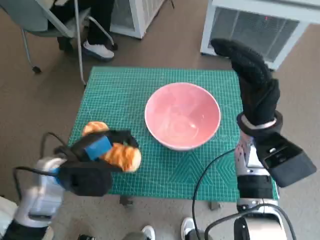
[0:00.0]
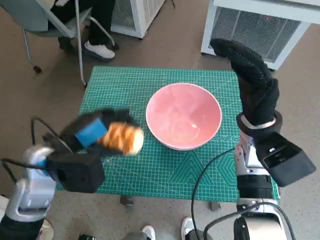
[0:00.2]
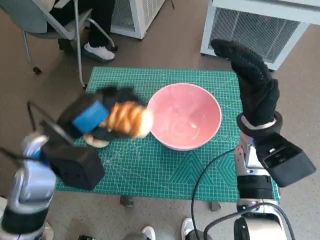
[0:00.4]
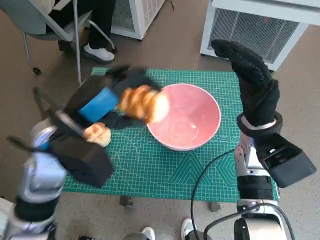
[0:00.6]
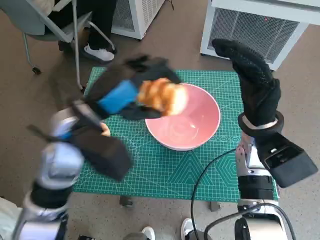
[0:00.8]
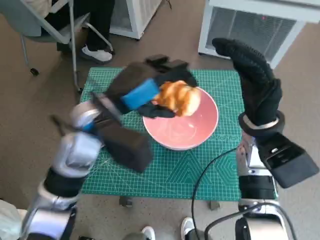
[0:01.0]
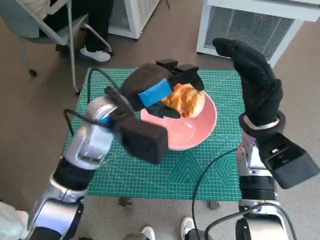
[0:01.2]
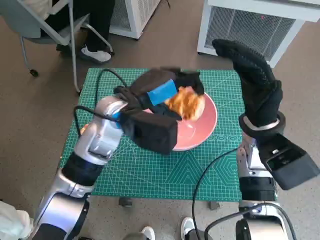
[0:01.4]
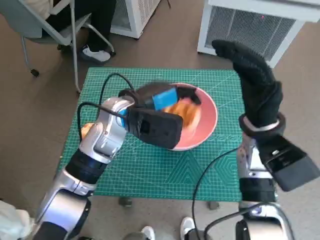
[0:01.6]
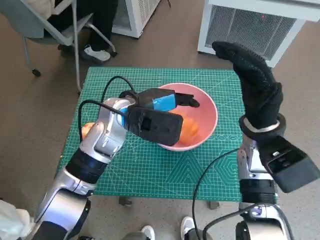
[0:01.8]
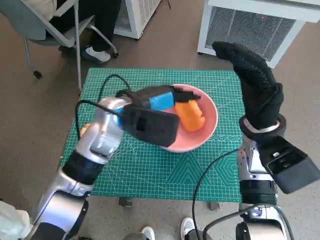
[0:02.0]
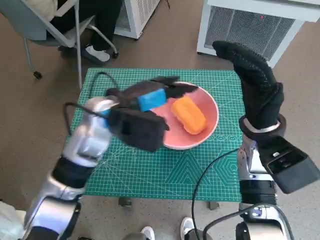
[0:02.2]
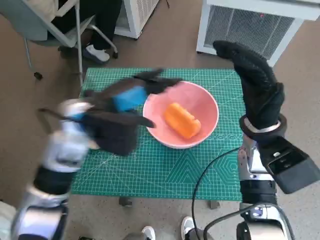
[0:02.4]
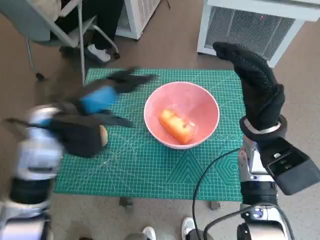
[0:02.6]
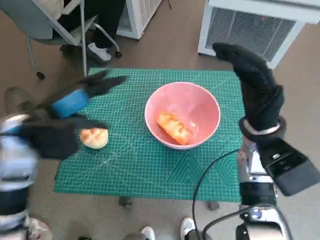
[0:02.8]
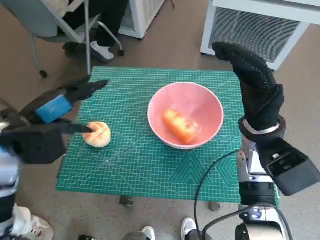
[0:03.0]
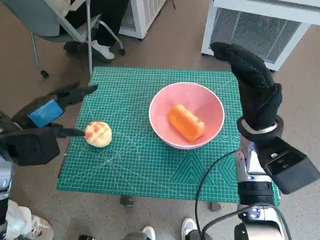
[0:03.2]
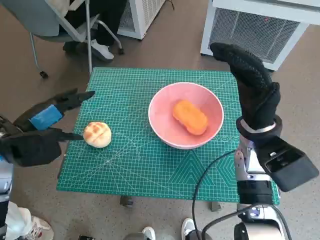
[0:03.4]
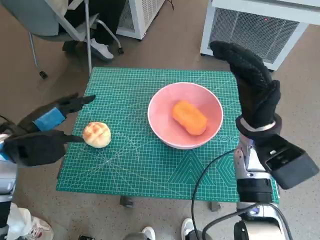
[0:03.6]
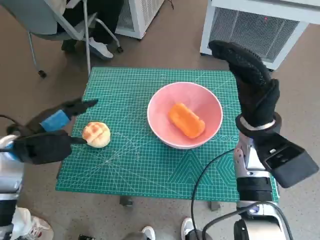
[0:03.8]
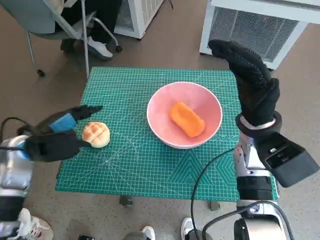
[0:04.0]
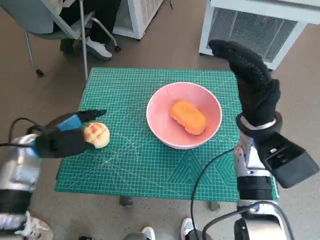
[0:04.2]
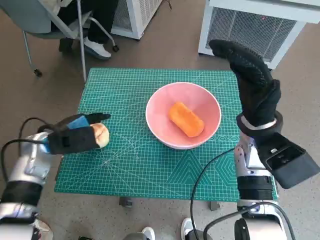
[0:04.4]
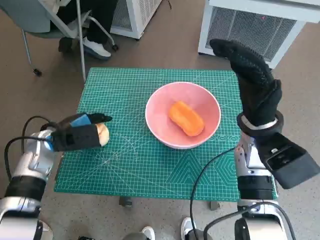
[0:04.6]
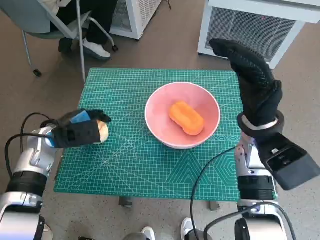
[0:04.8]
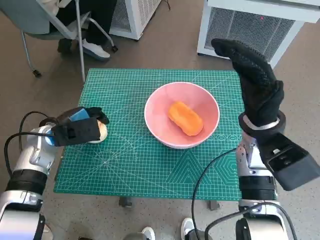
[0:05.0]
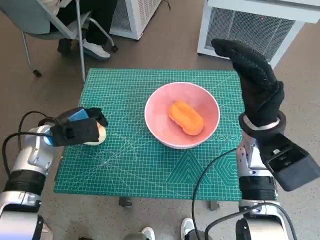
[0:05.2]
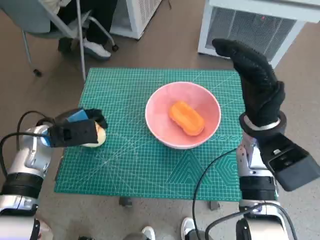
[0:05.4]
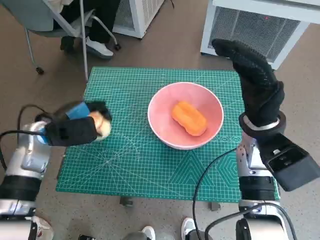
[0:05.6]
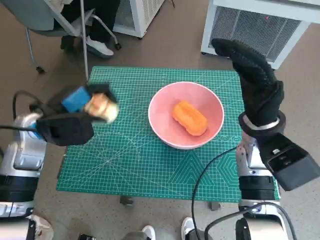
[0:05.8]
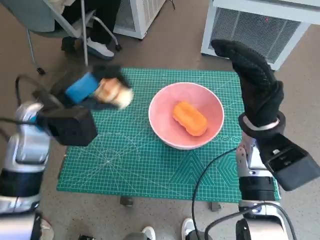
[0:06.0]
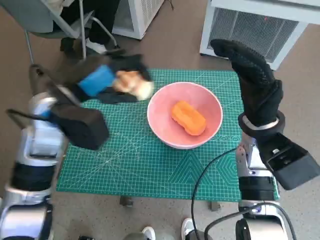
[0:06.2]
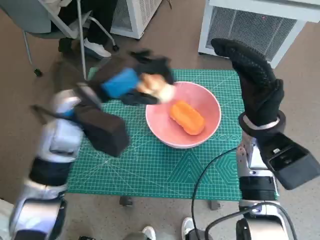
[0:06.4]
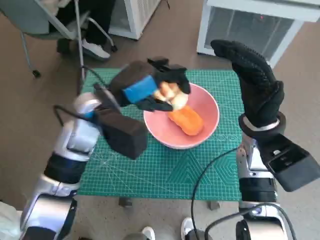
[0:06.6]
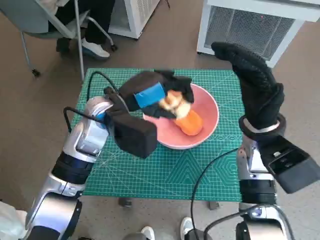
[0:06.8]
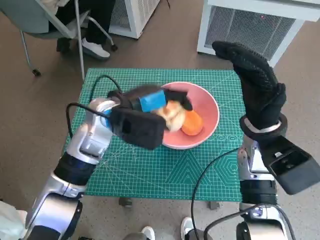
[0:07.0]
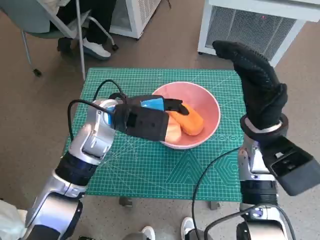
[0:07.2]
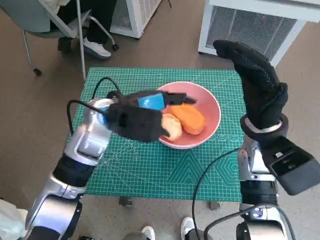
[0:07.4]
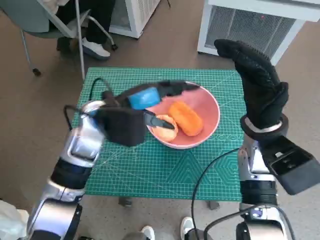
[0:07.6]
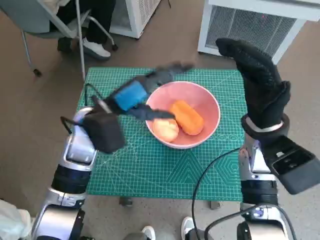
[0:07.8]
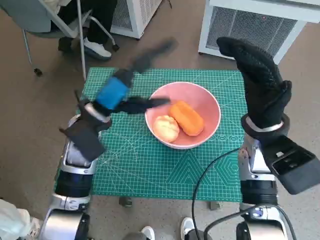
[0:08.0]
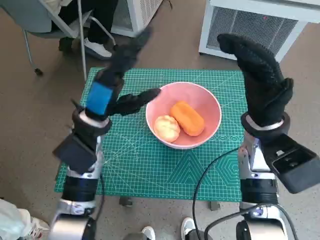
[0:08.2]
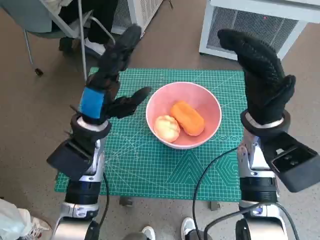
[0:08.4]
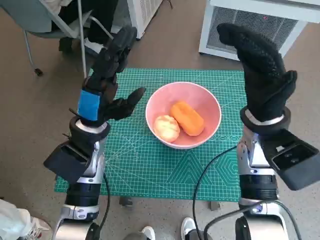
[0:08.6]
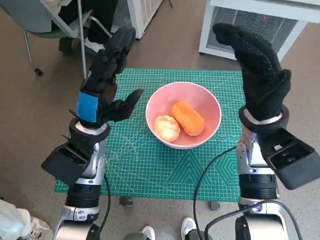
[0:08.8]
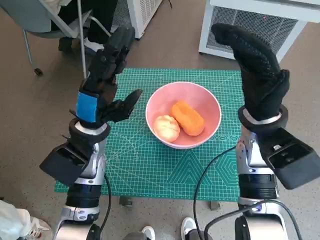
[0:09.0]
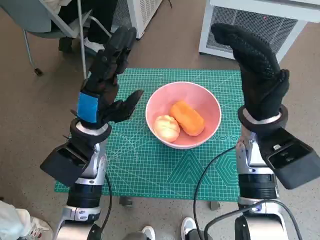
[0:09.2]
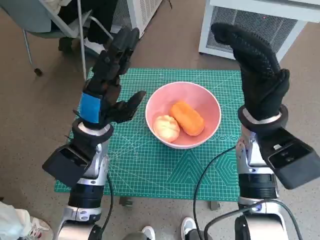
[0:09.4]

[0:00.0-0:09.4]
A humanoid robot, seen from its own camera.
Task of the whole recording: Push the bowl to the center of the table and put the bread into the bowl.
Step, 0:00.0 to 0:02.4: Place the long bread in pink bowl with left hand.
Step, 0:02.6 to 0:04.8: Grasp the round bread with left hand.
Step, 0:05.0 to 0:07.6: Place the round bread in pink bowl with left hand.
0:00.0 to 0:01.6: The left hand travels to the right, forward and upward by about 15 cm.
0:01.6 to 0:03.2: The left hand shifts approximately 20 cm to the left.
0:03.2 to 0:04.8: The left hand heads downward and forward, covering approximately 10 cm.
0:04.8 to 0:06.2: The left hand travels upward and to the right by about 15 cm.
0:06.2 to 0:07.8: The left hand shifts roughly 5 cm to the right.
